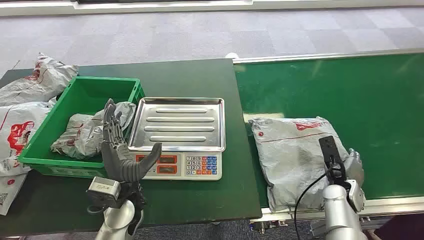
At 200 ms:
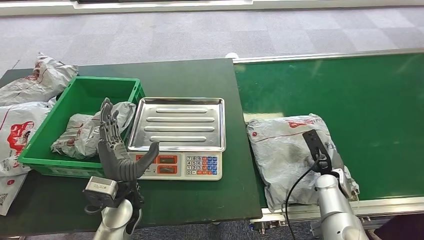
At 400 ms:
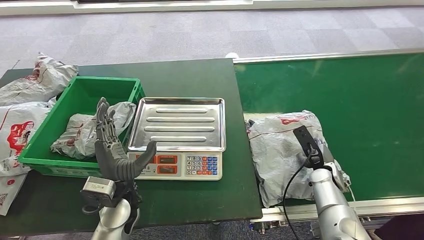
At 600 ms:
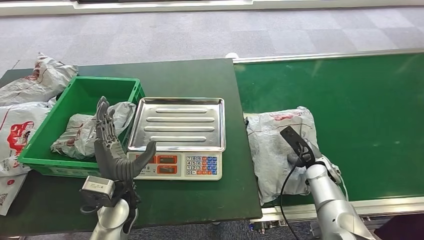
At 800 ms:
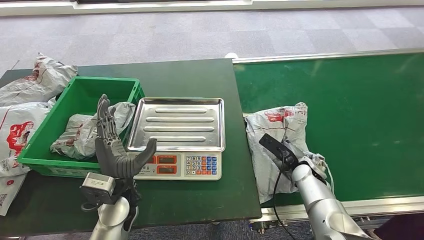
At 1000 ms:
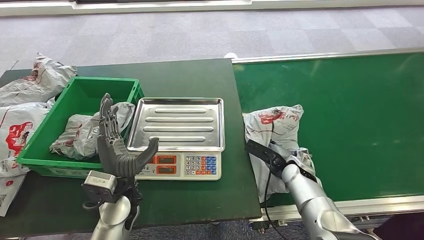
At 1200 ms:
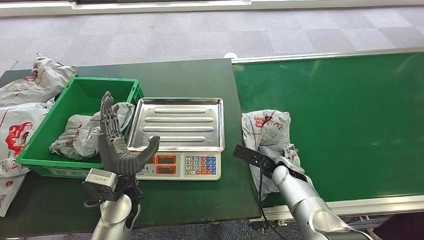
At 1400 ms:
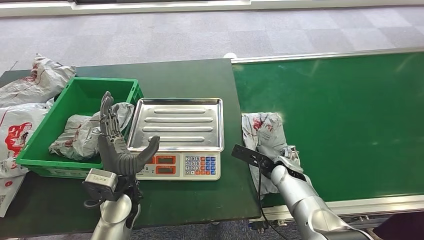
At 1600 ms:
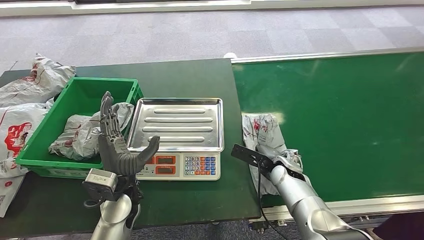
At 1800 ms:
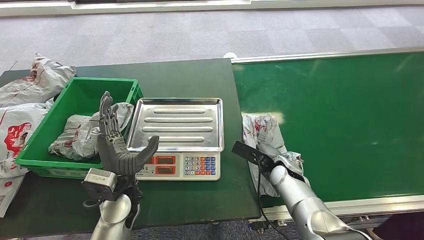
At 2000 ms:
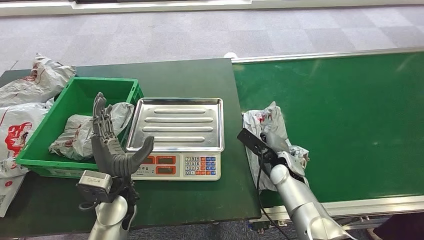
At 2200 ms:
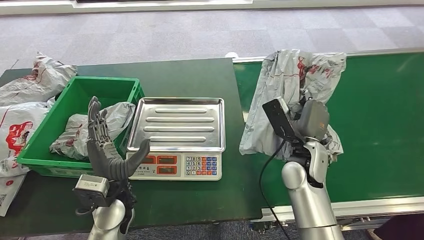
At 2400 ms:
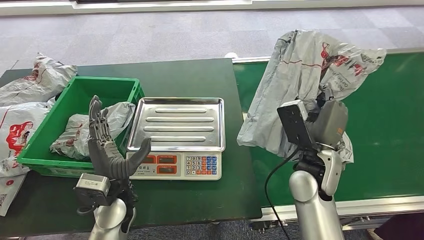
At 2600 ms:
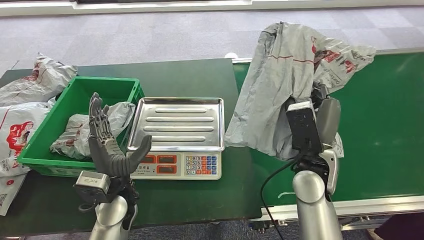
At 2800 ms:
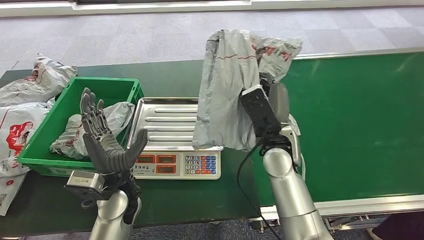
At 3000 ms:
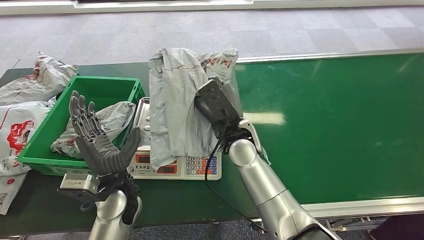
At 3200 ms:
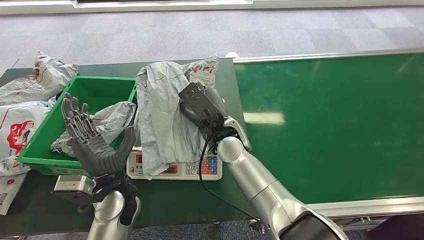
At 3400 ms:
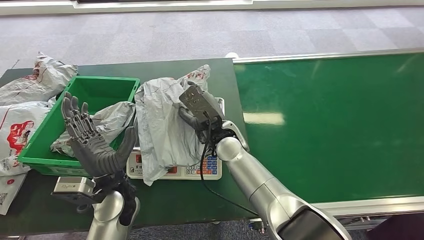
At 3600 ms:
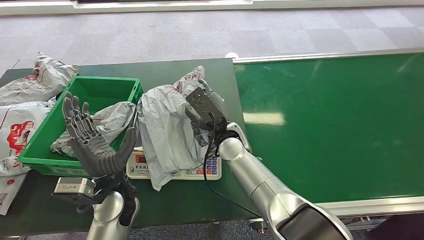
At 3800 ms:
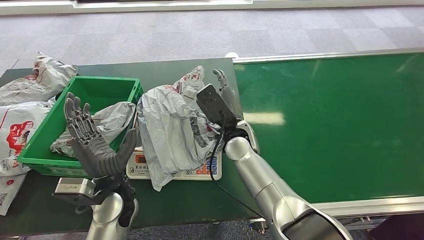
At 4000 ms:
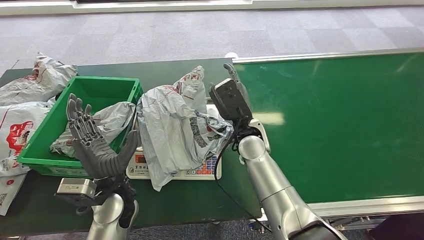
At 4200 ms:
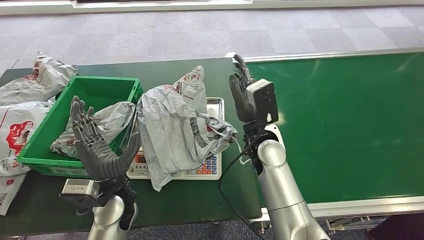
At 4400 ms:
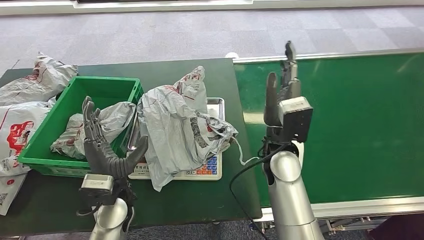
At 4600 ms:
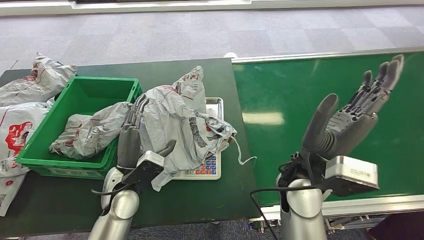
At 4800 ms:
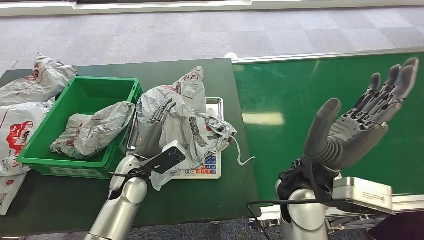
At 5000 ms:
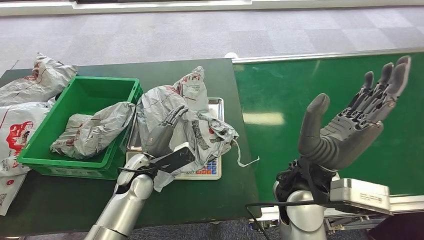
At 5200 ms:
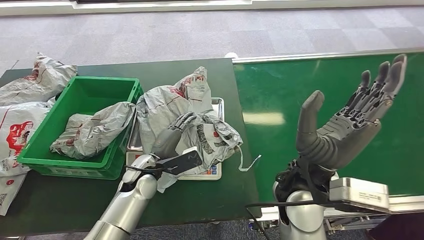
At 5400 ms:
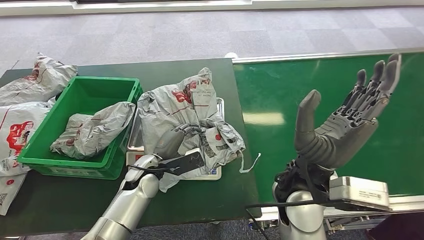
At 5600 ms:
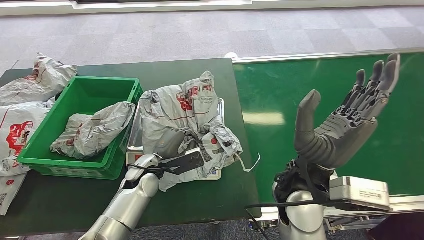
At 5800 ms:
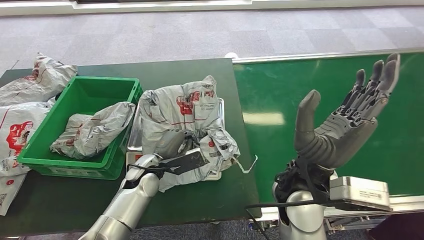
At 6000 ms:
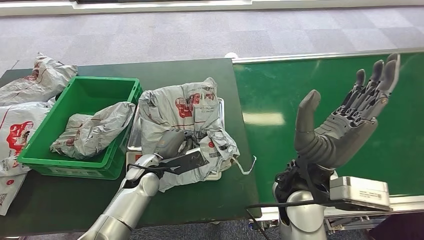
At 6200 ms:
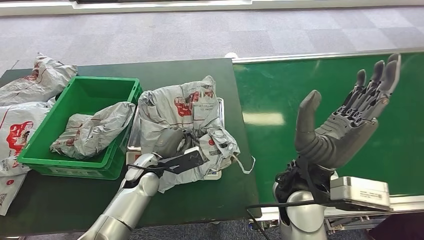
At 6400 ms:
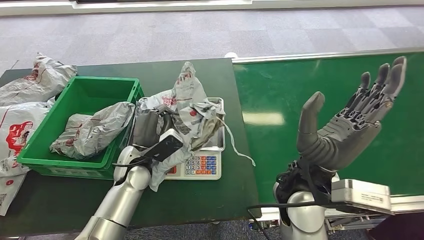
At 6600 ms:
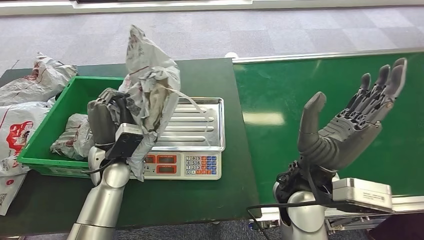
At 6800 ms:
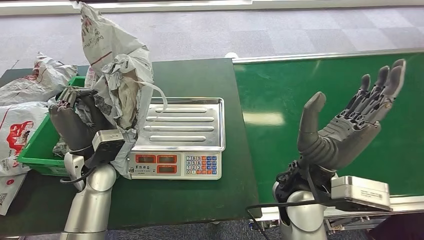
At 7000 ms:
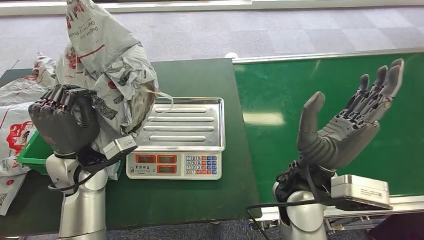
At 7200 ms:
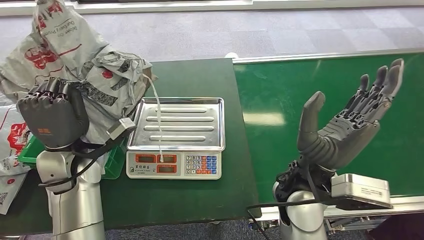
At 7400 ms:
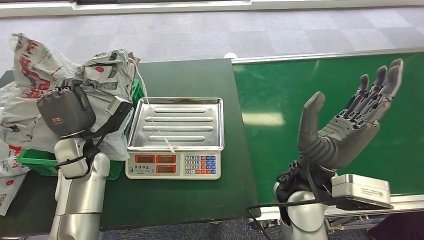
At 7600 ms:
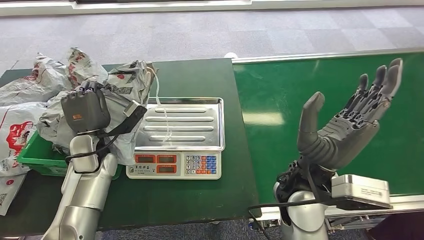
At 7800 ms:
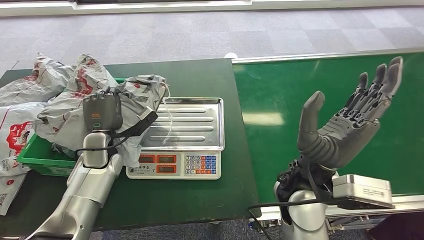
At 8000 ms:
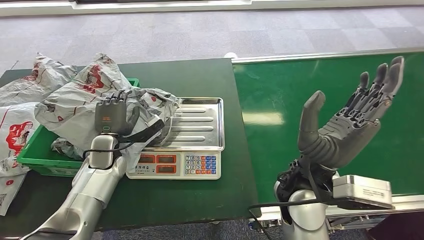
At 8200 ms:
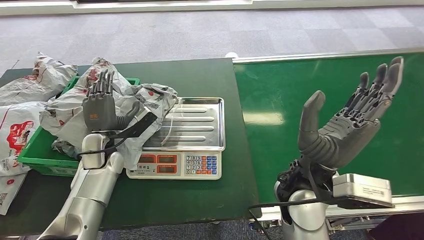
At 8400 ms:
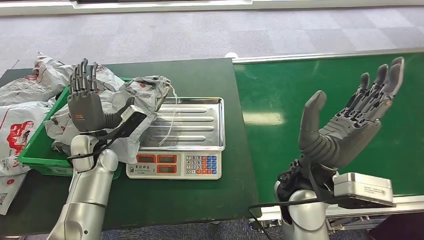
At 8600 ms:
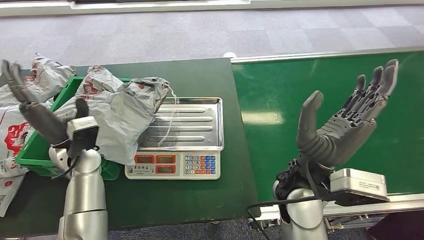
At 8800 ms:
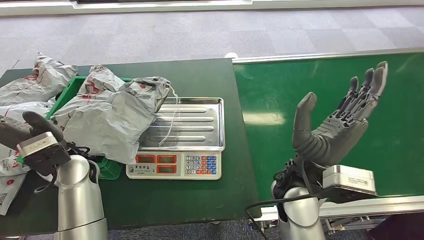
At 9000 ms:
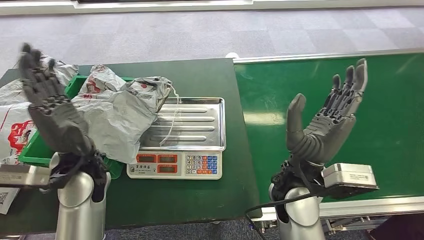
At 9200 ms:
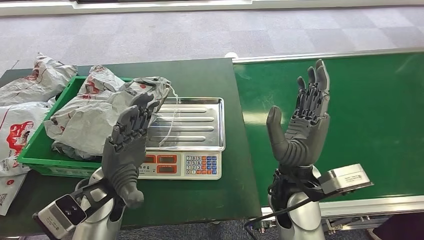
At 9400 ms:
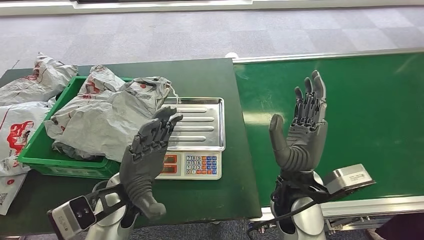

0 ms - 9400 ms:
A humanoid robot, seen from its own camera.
Task of the whole recording: Weigh the package on the weighing device and place it in the left basket.
Step, 0 ms - 2600 ms: Pick up the package from the conveyor belt.
Step, 2800 ms - 5000 ms: Place the package onto the inbound machine.
Step, 5200 ms - 6600 ms: Pick up the package from the inbound machine.
Step, 7000 ms - 9400 ms: Place the package into the parcel locker.
4800 ms - 6200 ms: The hands move only a little.
